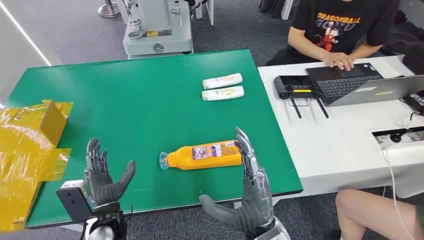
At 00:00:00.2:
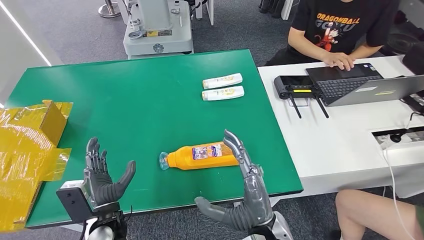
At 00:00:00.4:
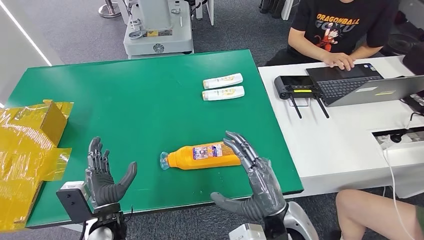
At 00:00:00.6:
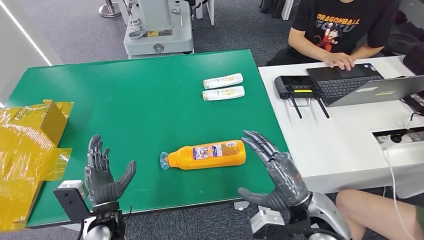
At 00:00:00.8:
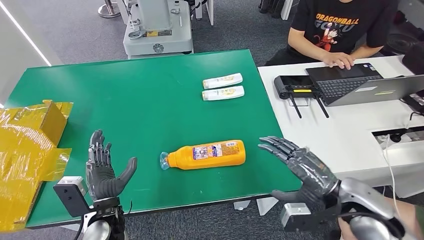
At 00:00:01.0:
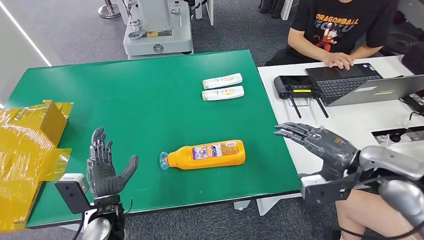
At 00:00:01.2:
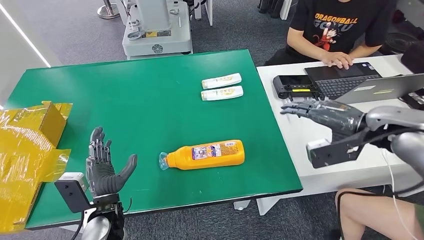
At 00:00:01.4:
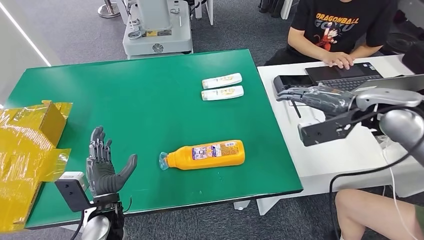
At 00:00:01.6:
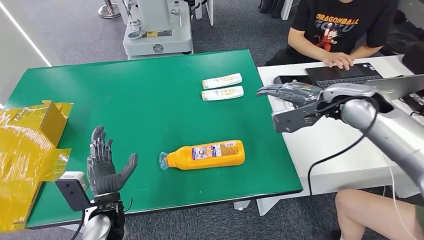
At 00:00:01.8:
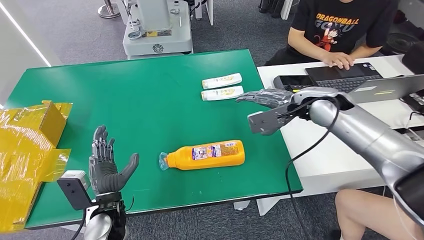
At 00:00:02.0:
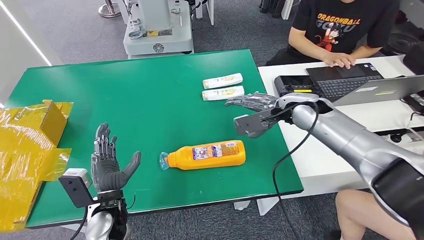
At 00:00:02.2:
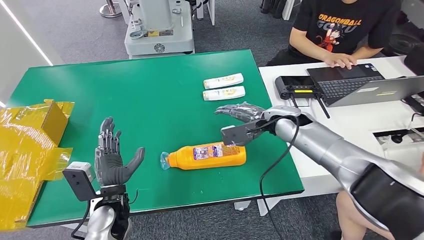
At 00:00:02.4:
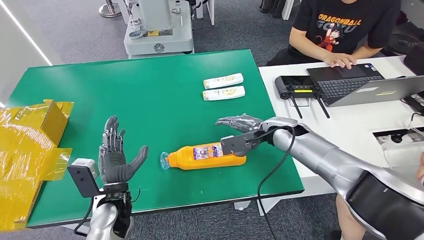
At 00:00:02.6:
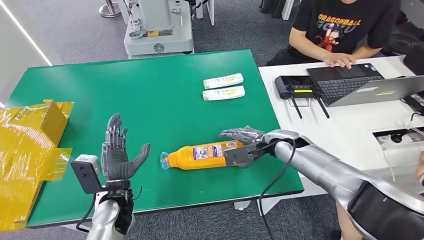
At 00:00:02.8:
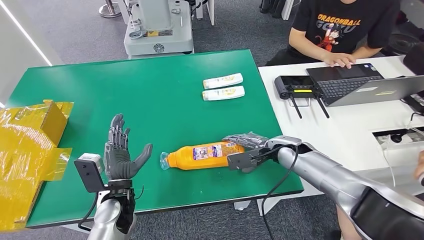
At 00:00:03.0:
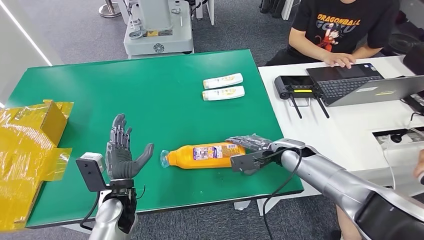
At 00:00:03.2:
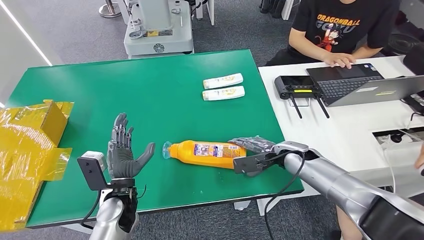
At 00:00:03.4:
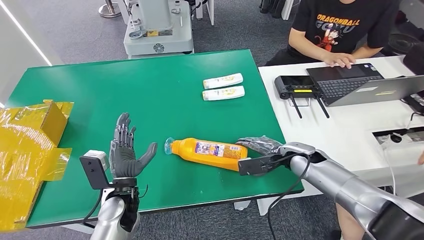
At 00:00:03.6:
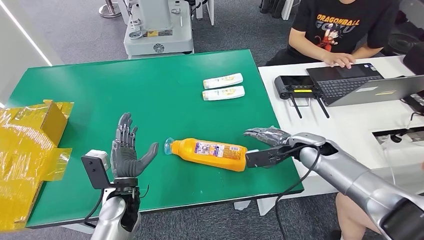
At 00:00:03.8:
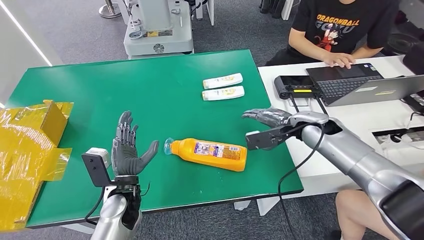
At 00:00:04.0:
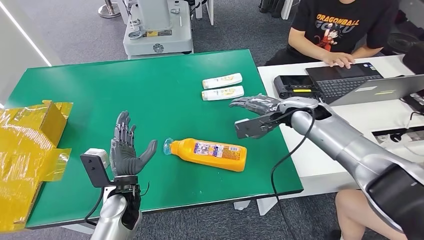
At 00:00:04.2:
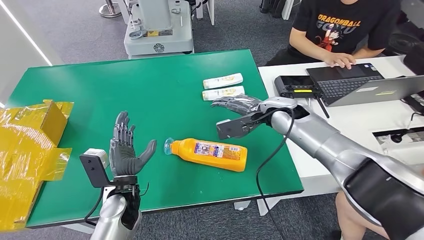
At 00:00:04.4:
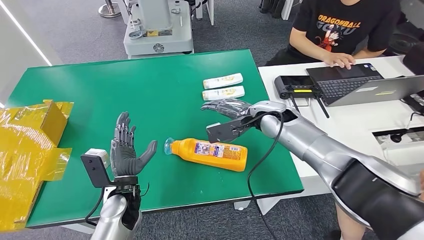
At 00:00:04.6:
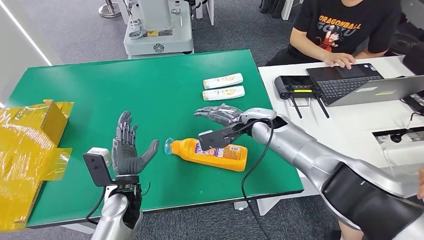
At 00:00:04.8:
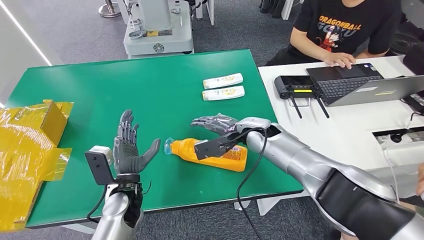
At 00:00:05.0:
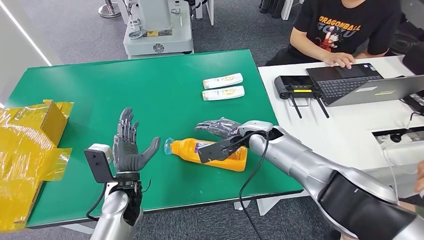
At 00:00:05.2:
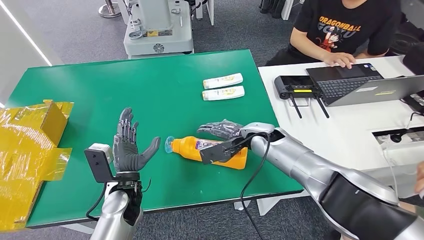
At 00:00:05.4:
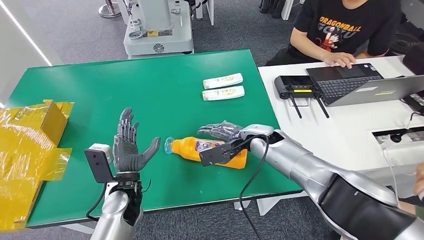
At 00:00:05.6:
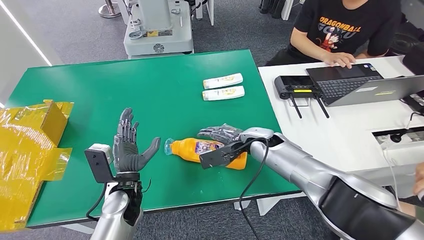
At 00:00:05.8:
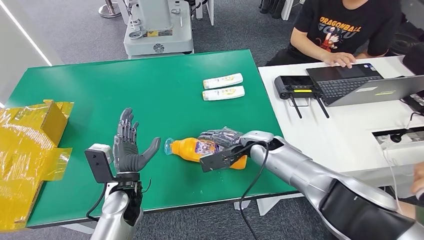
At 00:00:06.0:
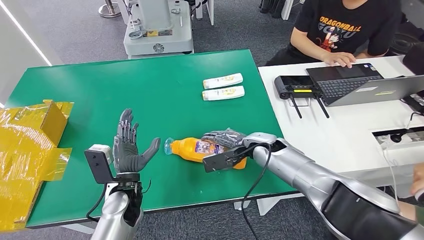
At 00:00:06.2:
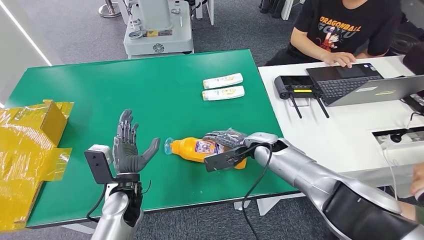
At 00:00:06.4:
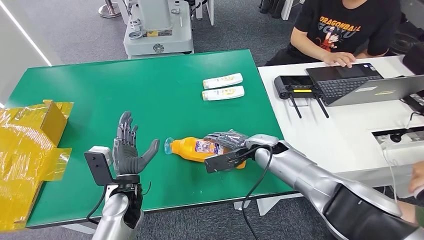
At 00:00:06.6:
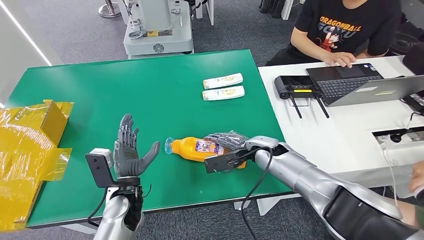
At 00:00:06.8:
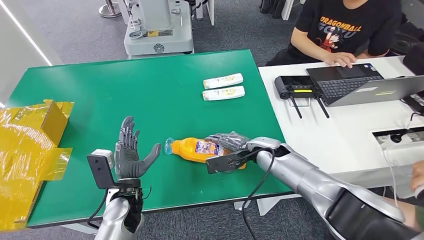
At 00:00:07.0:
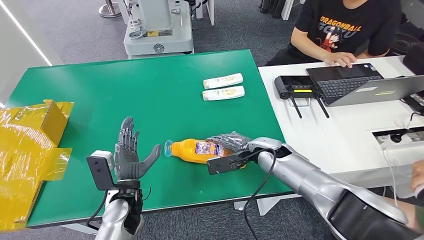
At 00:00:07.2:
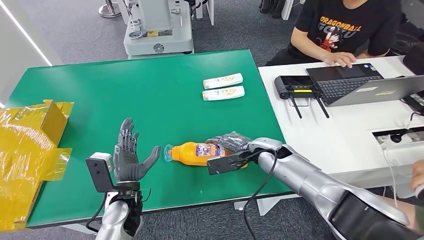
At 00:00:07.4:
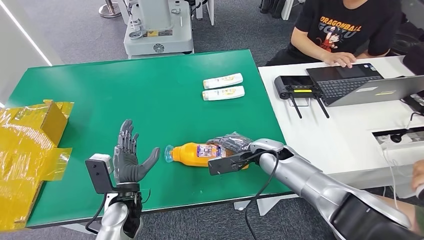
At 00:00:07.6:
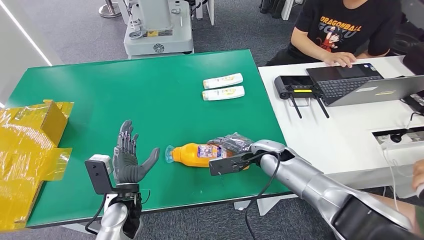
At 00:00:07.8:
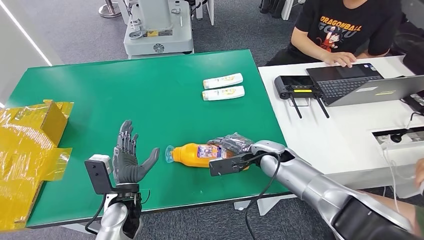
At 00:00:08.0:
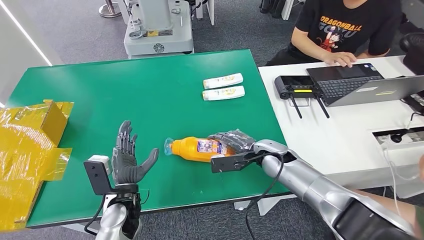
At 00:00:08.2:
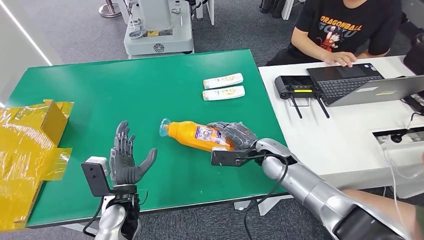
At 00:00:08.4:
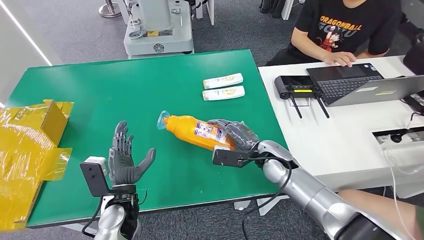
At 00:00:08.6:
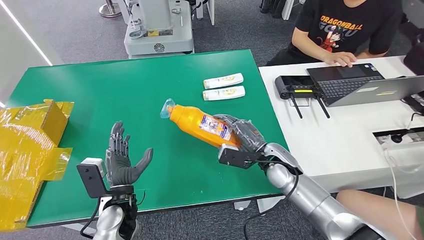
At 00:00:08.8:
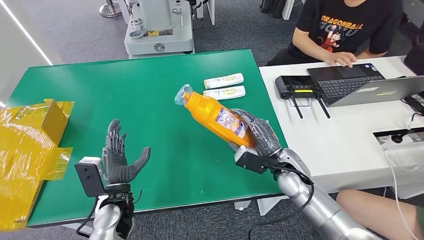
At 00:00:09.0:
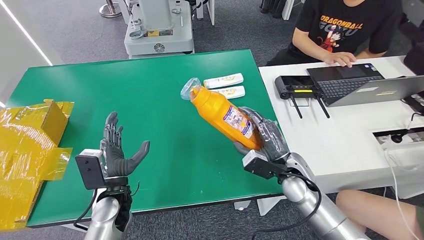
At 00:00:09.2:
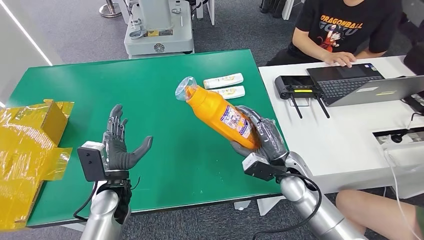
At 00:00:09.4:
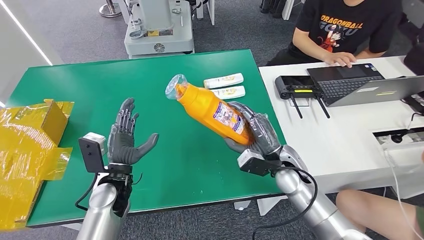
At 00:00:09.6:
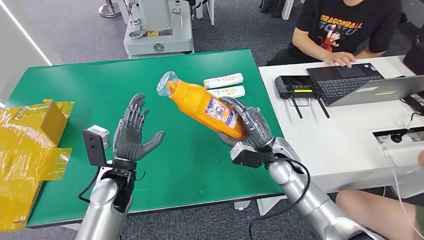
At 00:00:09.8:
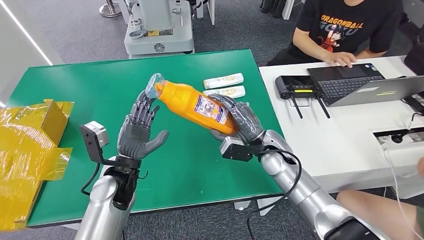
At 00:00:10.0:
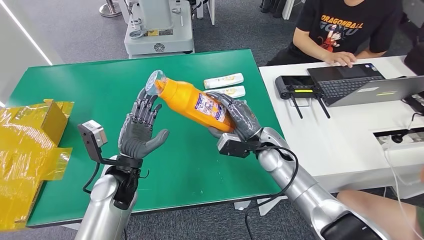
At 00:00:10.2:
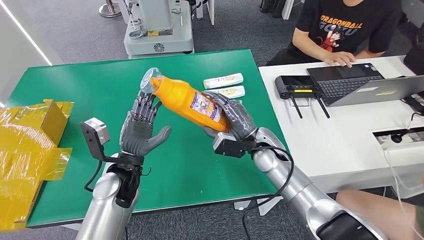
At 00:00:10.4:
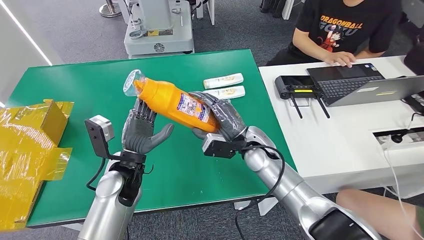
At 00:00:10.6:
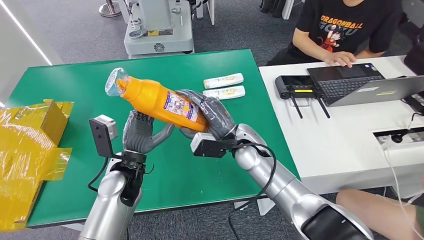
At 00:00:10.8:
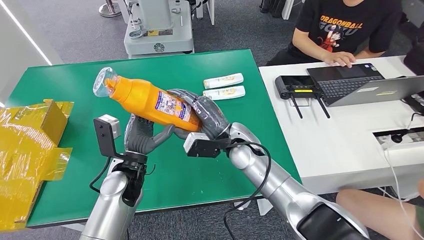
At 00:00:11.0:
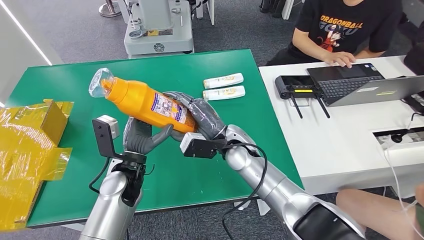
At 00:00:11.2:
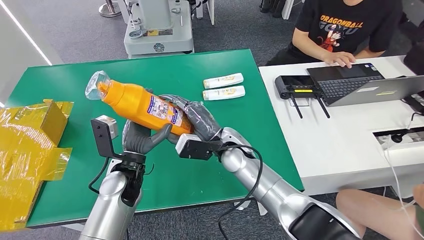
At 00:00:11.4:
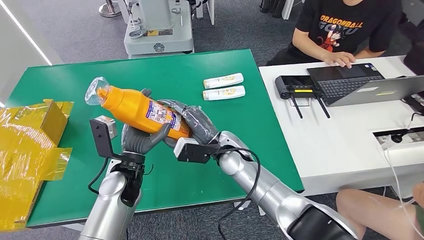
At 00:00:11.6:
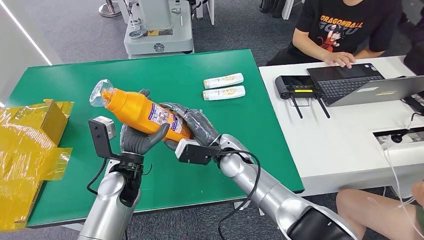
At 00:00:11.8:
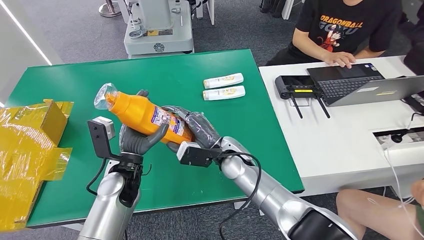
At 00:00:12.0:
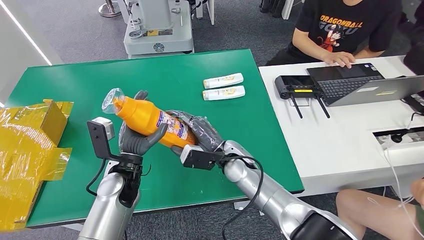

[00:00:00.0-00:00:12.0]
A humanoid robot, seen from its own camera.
Step, 00:00:00.0 to 00:00:08.8: Pick up the bottle from the table.
00:00:03.0 to 00:00:04.4: The right hand shifts roughly 15 cm upward, forward and to the left.
00:00:04.4 to 00:00:06.0: The right hand goes approximately 10 cm downward.
00:00:06.0 to 00:00:07.6: There are only small adjustments of the hands.
00:00:07.6 to 00:00:09.0: The right hand moves backward, some 10 cm.
00:00:09.0 to 00:00:10.4: The right hand shifts approximately 10 cm to the left and forward, while the left hand travels upward by about 5 cm.
00:00:10.4 to 00:00:12.0: The right hand is displaced to the left by about 5 cm.

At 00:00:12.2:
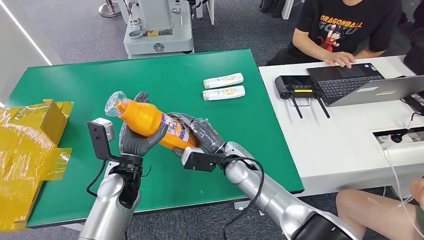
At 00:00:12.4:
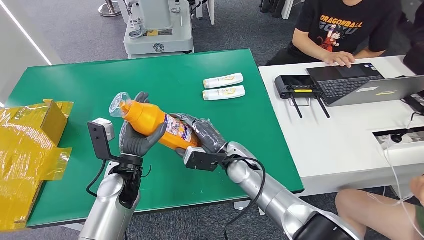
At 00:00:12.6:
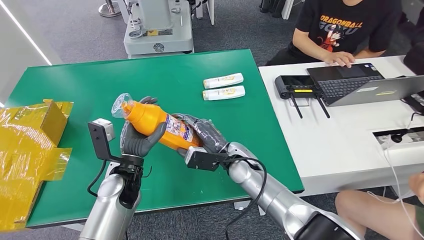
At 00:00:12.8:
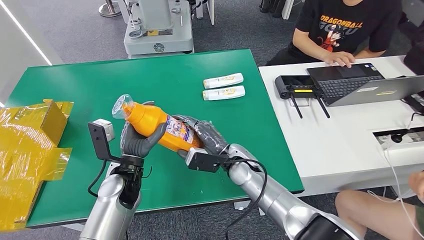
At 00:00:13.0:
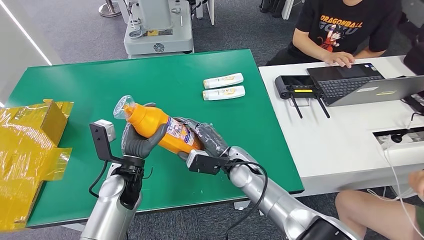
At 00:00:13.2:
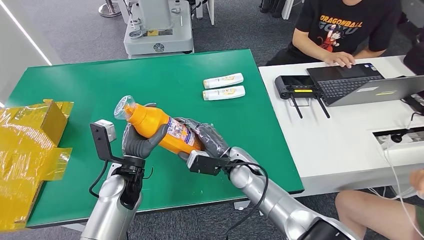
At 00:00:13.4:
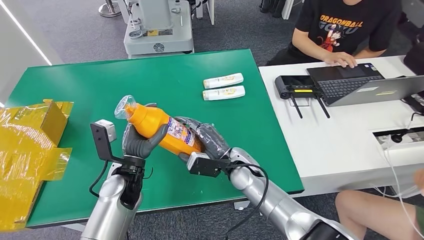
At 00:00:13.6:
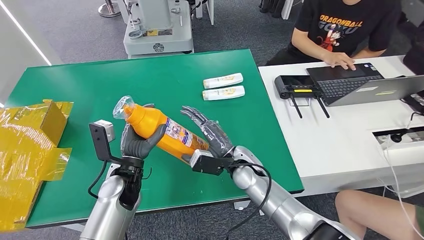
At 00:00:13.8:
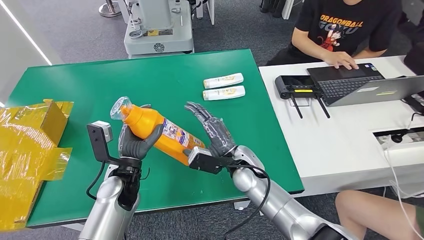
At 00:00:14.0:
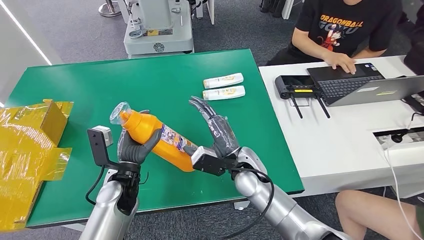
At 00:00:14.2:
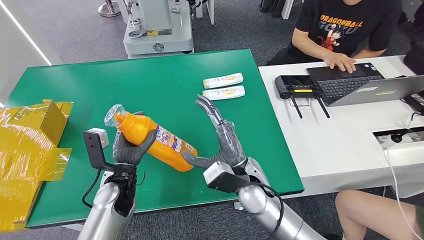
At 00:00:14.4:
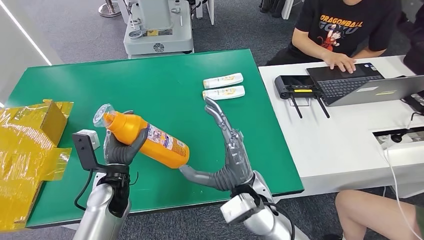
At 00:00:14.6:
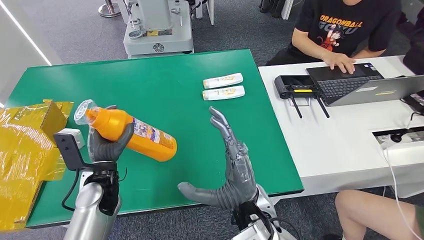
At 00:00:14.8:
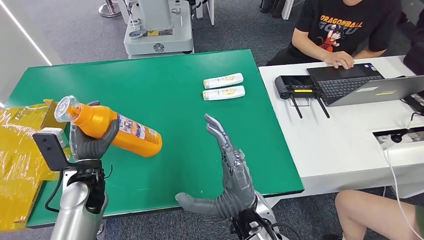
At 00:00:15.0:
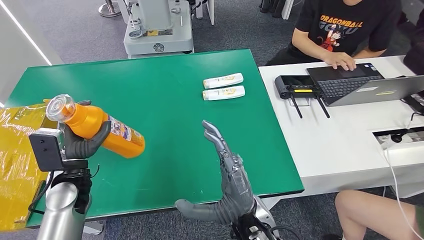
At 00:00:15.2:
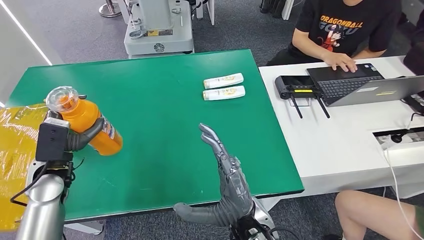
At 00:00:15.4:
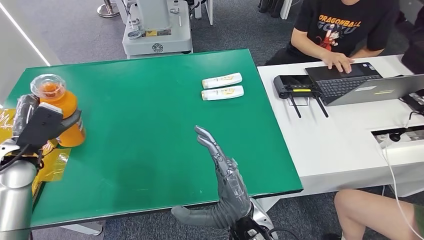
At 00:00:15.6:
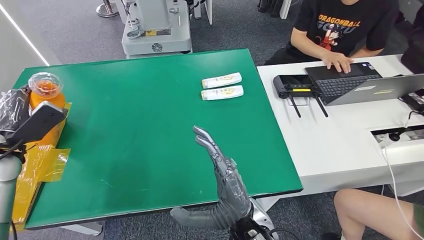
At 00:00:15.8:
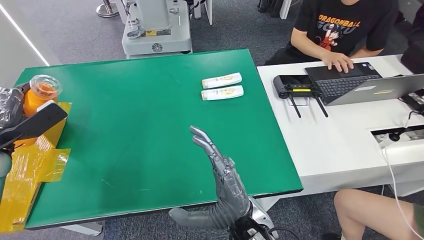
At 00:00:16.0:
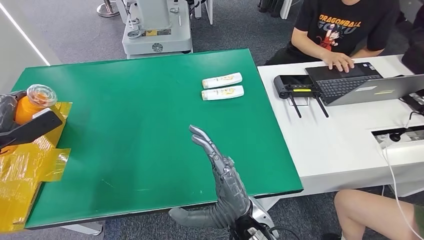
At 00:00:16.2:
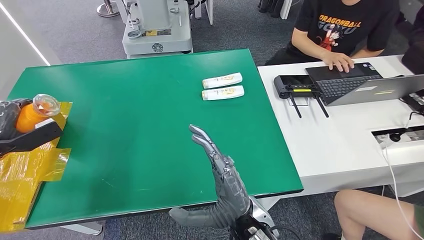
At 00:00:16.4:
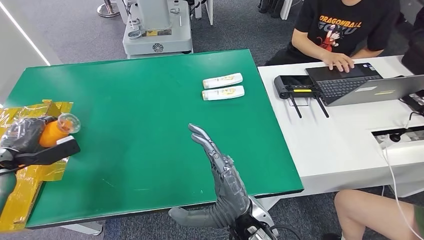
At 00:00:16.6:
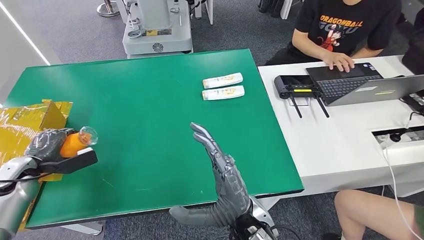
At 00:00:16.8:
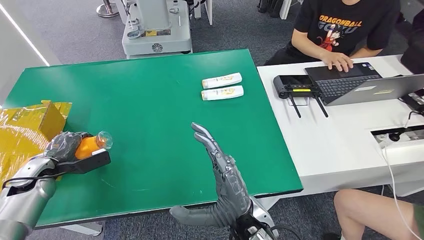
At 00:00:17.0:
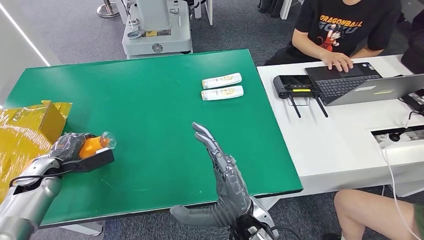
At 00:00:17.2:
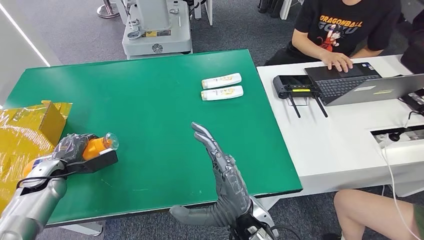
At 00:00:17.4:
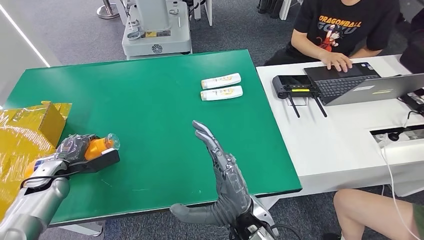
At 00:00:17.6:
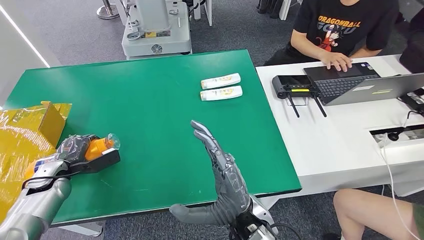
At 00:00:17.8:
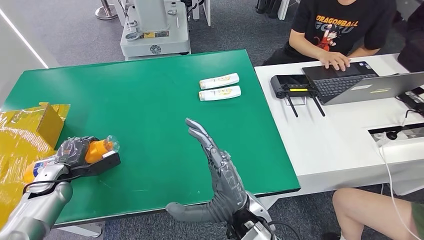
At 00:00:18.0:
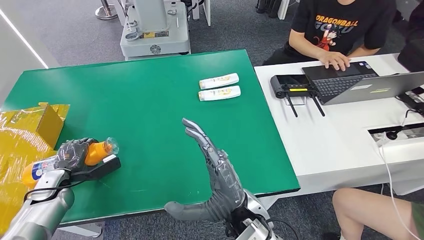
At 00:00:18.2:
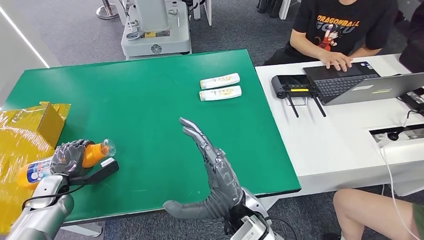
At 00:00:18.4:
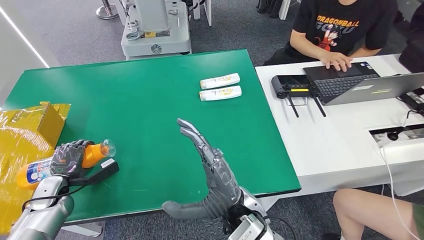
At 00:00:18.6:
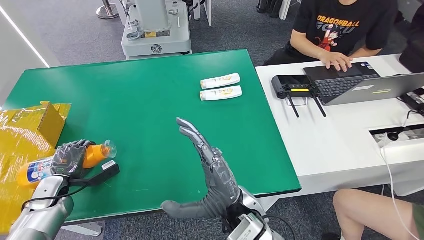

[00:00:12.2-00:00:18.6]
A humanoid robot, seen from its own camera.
00:00:12.2 to 00:00:13.8: The hands move only a little.
00:00:15.4 to 00:00:17.0: The left hand shifts approximately 10 cm downward and to the left.
00:00:17.0 to 00:00:18.6: The left hand changes place by approximately 5 cm.
